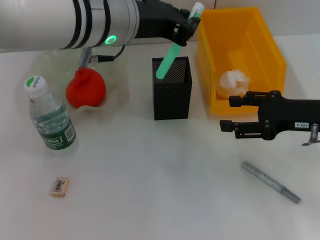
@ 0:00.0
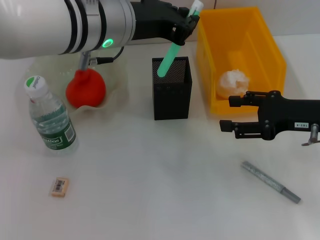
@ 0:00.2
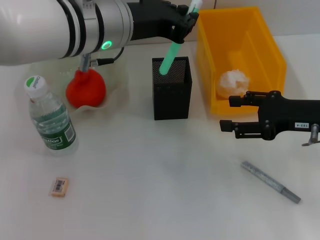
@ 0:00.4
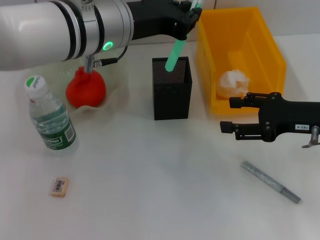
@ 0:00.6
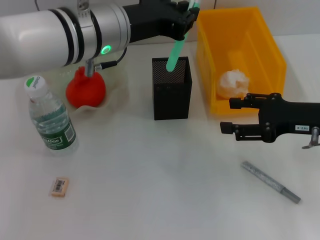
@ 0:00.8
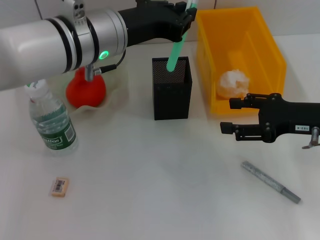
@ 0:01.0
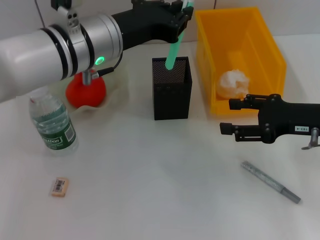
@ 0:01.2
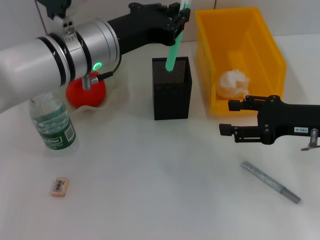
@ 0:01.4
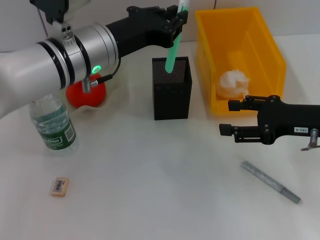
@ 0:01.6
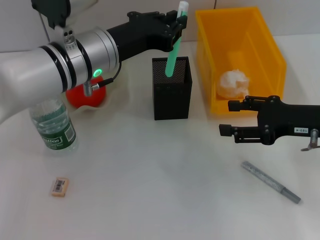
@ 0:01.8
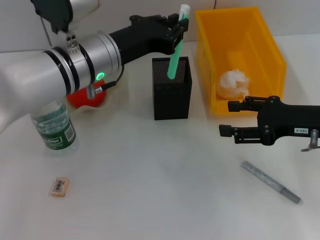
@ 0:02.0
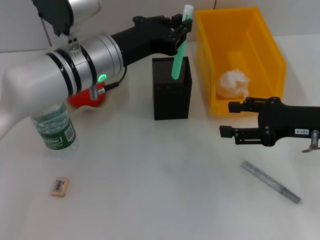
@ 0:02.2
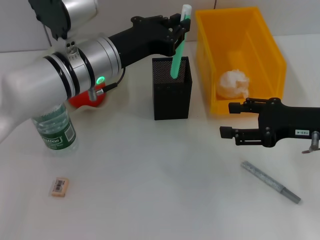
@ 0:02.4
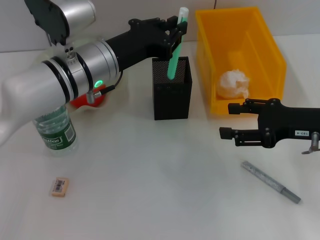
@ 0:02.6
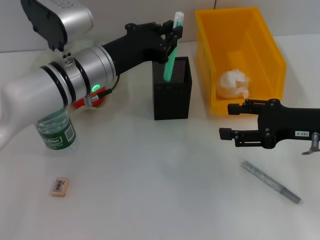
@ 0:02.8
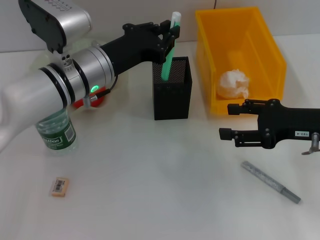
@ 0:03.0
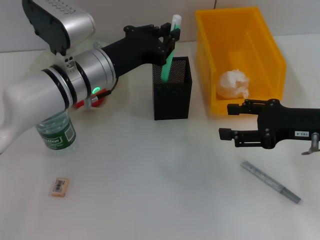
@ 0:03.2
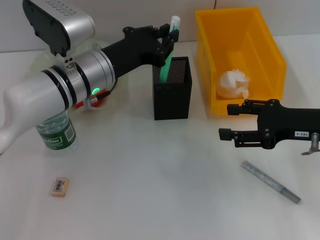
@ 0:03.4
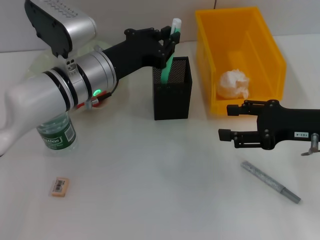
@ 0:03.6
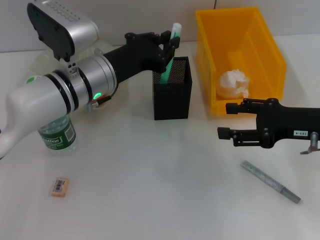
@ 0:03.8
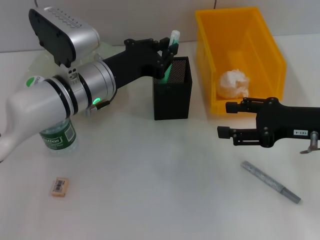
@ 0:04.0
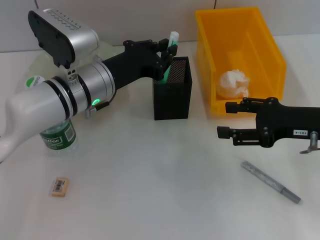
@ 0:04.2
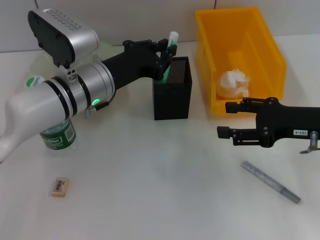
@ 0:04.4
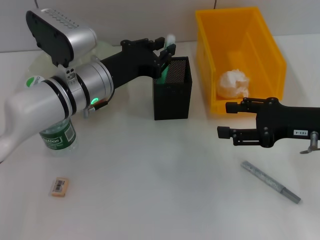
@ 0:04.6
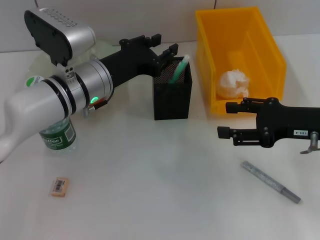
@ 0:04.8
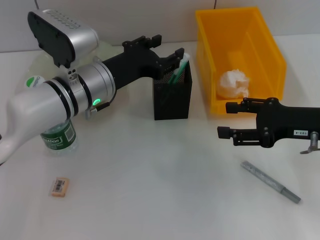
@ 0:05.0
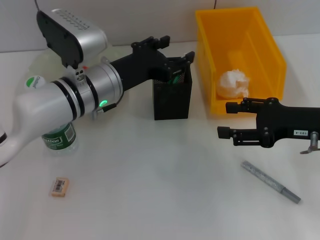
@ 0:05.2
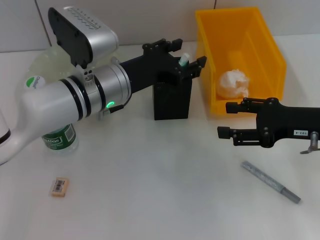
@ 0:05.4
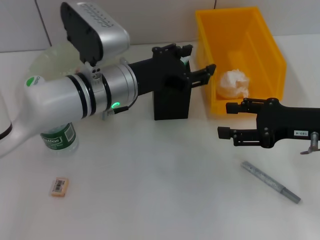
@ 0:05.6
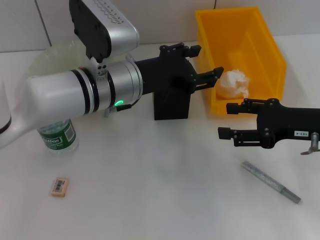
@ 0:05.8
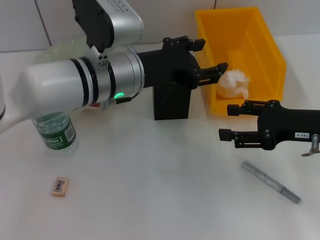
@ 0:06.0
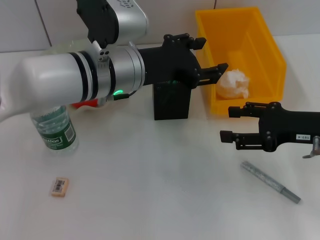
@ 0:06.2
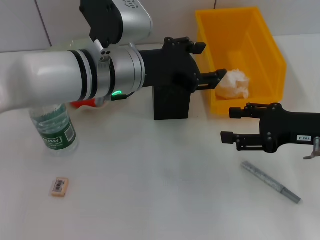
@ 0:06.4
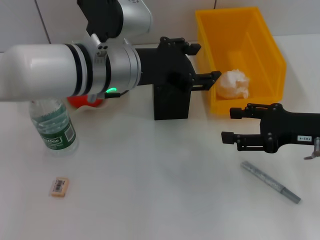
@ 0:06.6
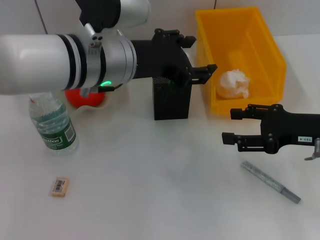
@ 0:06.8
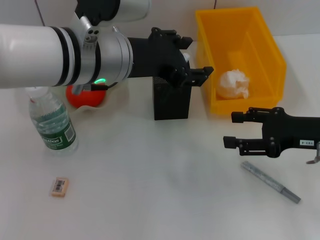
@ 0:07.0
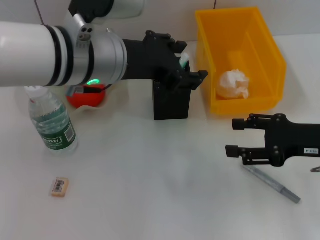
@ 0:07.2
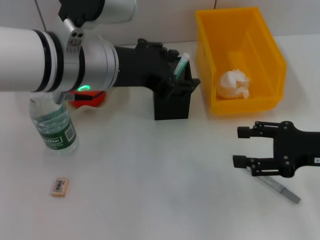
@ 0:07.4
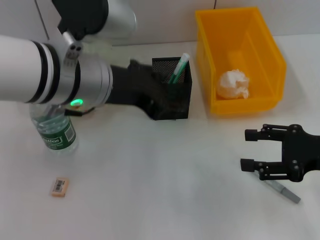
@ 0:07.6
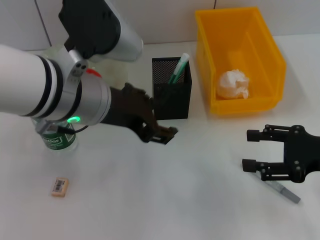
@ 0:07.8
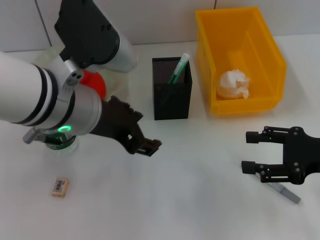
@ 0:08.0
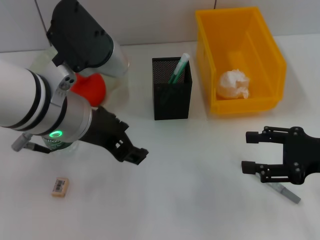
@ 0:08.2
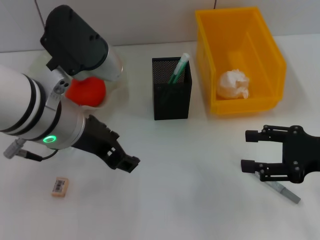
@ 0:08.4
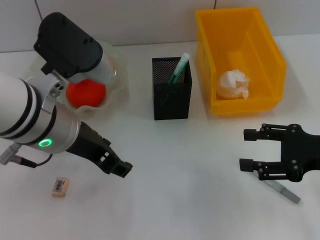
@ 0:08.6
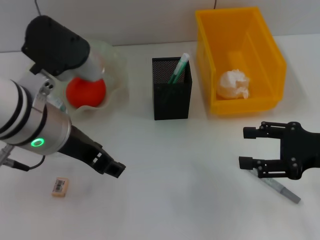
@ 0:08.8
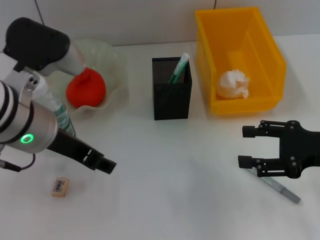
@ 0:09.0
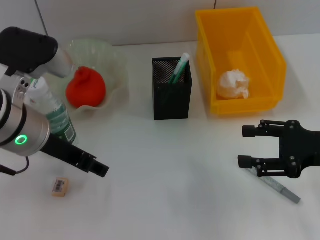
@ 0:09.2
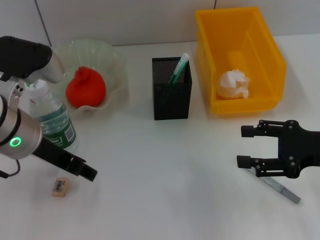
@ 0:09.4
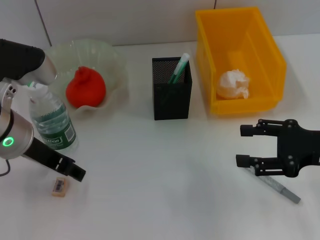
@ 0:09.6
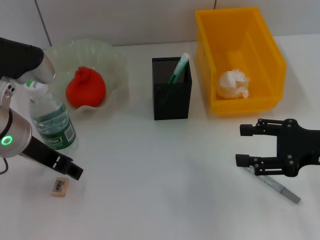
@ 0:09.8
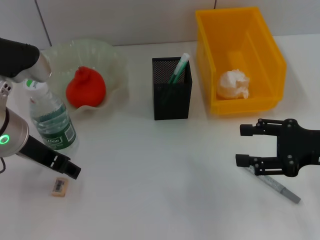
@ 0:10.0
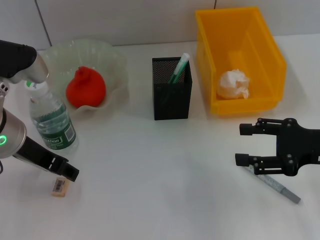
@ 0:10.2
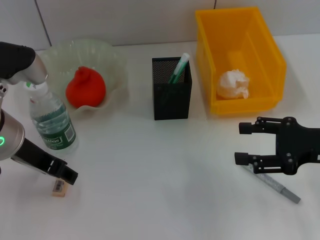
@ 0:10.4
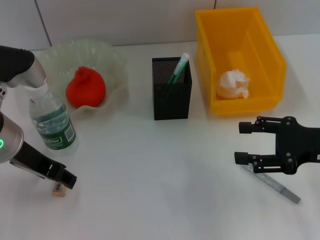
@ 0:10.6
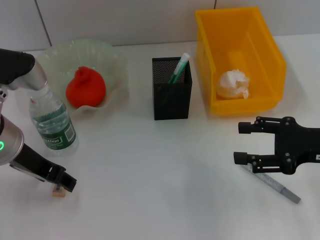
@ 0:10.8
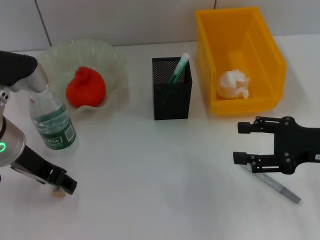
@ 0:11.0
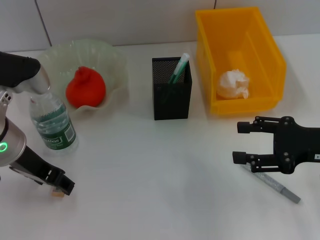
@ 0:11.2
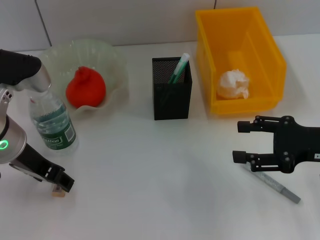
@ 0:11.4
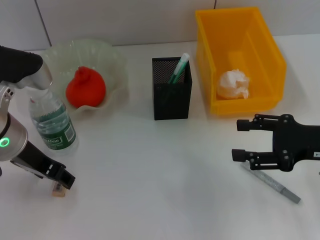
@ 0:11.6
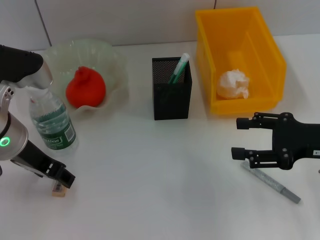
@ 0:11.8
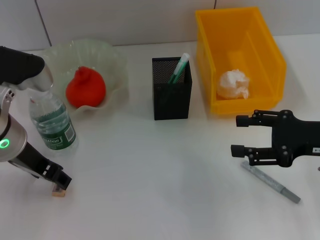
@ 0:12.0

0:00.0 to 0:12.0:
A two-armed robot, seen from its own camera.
Step, 0:00.0 to 0:04.8: Place the blue utility knife into the pen holder with the left hand.
0:00.0 to 0:01.6: The left gripper is displaced downward by approximately 5 cm.
0:01.6 to 0:03.0: There are only small adjustments of the grippers.
0:03.0 to 0:04.4: There are only small adjustments of the grippers.
0:04.4 to 0:06.0: The left gripper changes place by some 5 cm, and opens up.
0:06.0 to 0:07.6: The left gripper shifts some 5 cm upward.
0:07.6 to 0:09.0: The left gripper ends up some 5 cm from where it was.
0:09.0 to 0:10.4: The left gripper changes place by roughly 5 cm.
0:10.4 to 0:12.0: There are only small adjustments of the grippers.

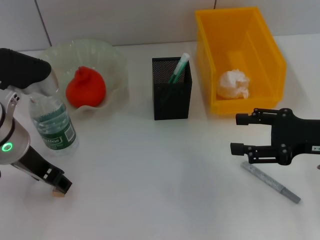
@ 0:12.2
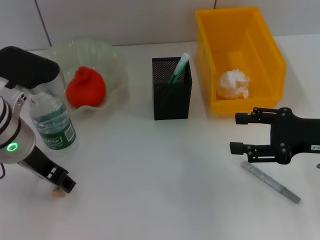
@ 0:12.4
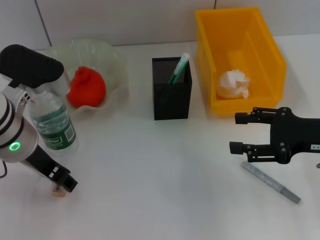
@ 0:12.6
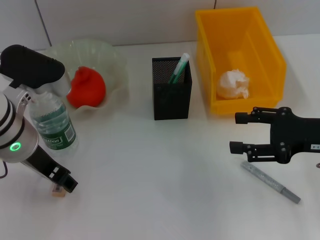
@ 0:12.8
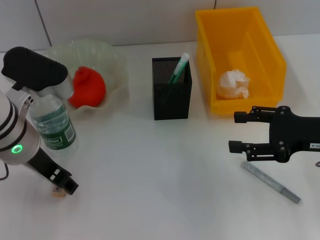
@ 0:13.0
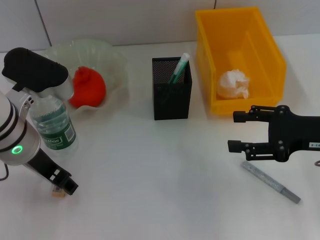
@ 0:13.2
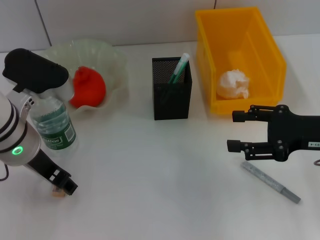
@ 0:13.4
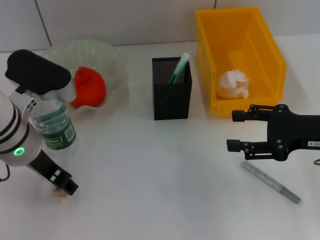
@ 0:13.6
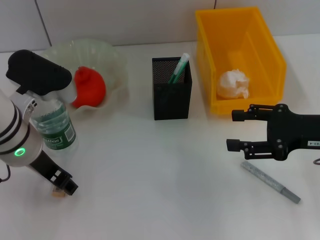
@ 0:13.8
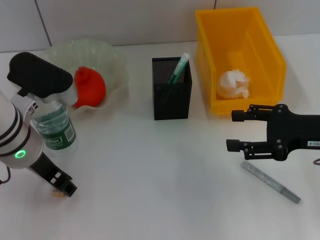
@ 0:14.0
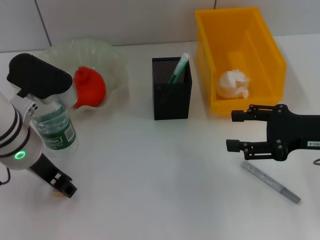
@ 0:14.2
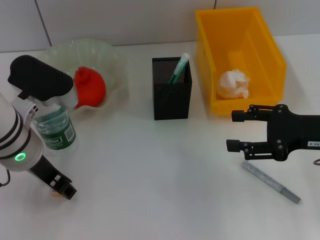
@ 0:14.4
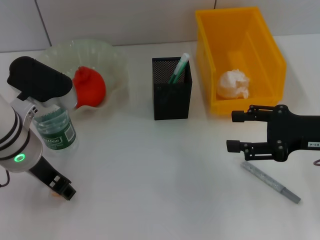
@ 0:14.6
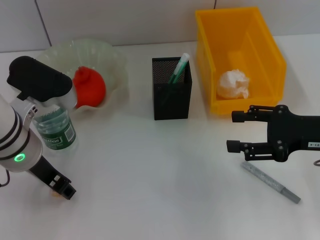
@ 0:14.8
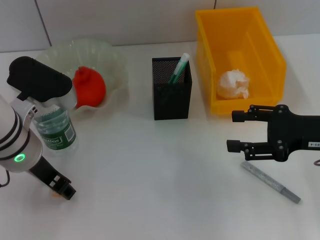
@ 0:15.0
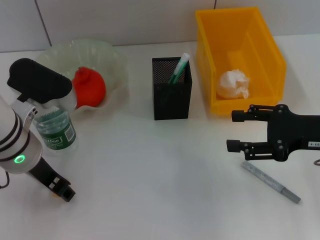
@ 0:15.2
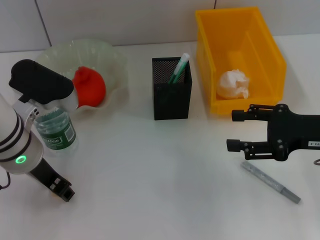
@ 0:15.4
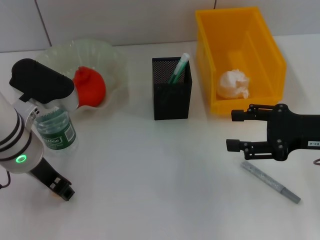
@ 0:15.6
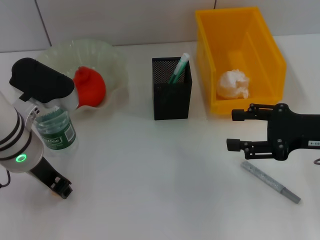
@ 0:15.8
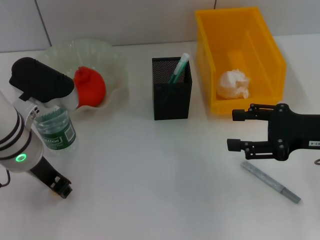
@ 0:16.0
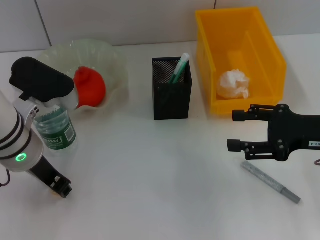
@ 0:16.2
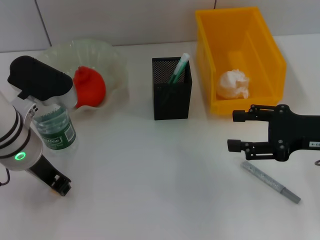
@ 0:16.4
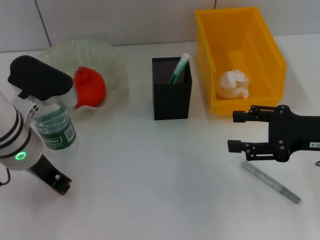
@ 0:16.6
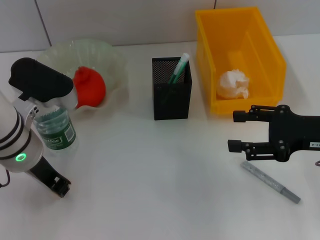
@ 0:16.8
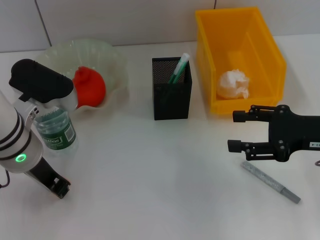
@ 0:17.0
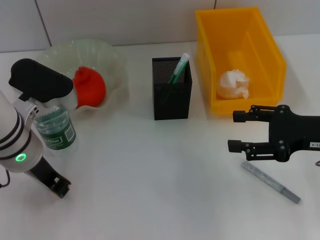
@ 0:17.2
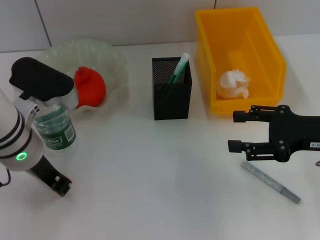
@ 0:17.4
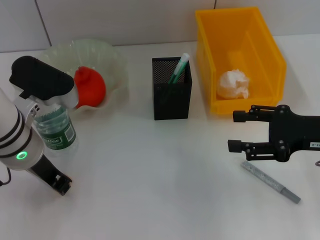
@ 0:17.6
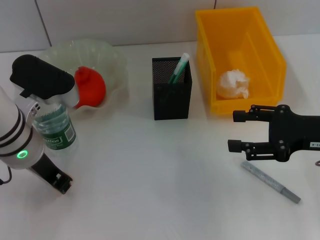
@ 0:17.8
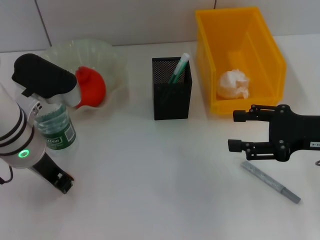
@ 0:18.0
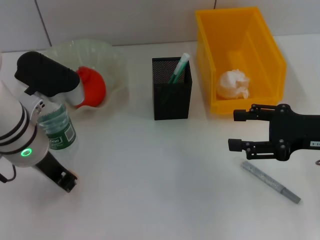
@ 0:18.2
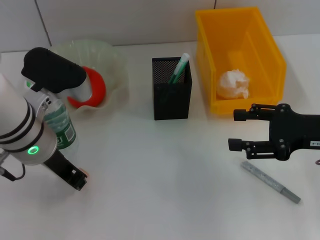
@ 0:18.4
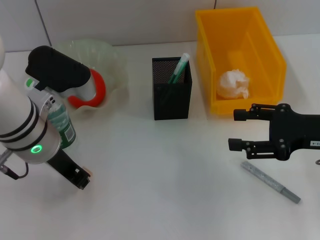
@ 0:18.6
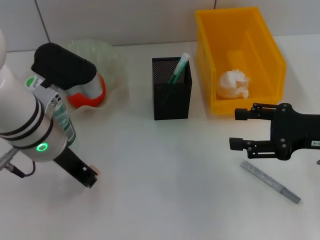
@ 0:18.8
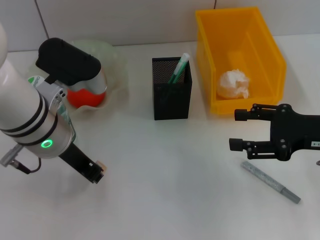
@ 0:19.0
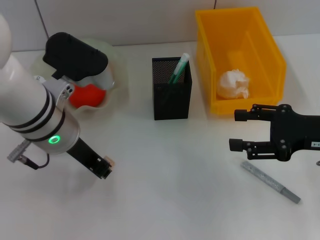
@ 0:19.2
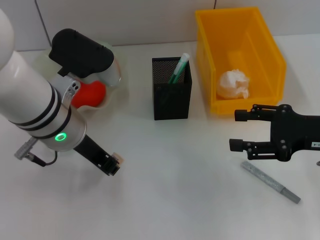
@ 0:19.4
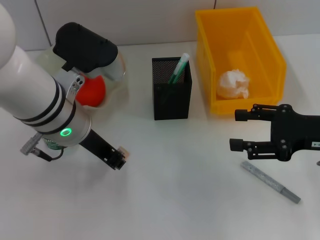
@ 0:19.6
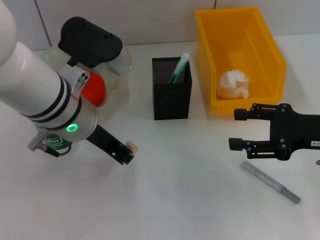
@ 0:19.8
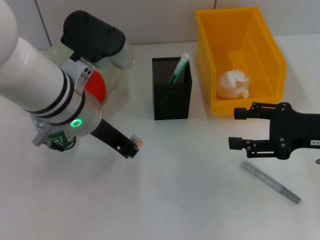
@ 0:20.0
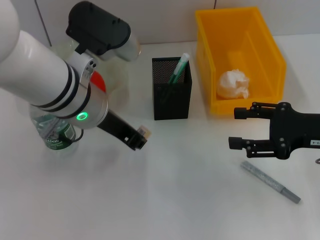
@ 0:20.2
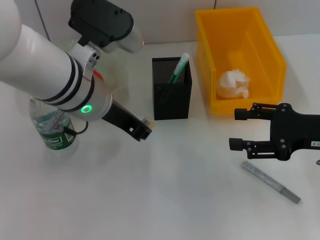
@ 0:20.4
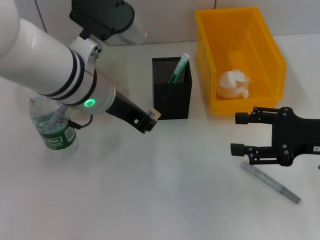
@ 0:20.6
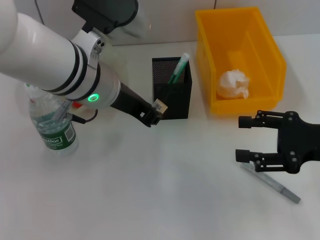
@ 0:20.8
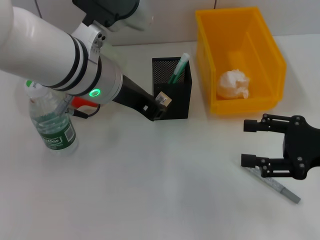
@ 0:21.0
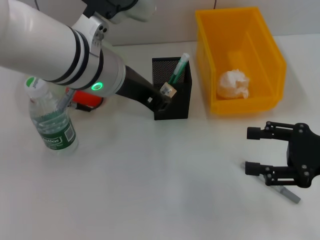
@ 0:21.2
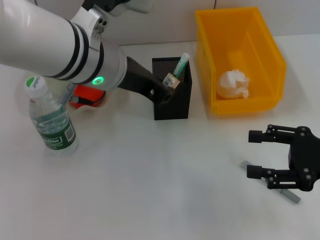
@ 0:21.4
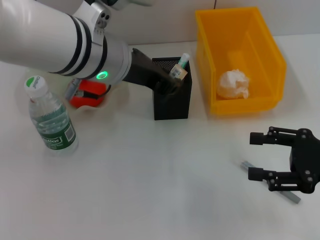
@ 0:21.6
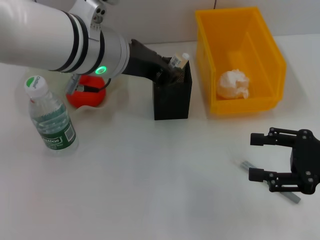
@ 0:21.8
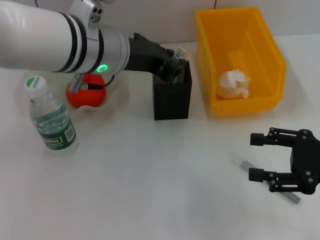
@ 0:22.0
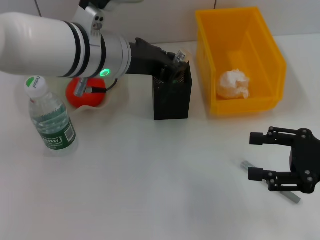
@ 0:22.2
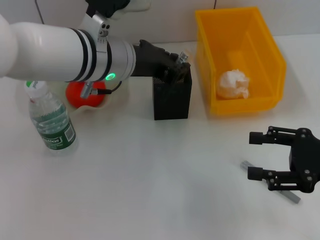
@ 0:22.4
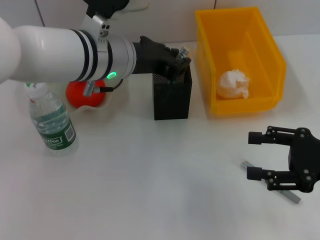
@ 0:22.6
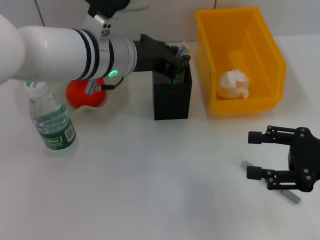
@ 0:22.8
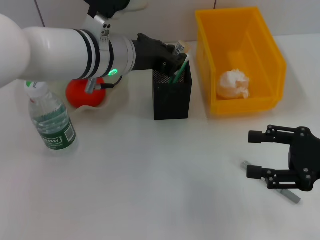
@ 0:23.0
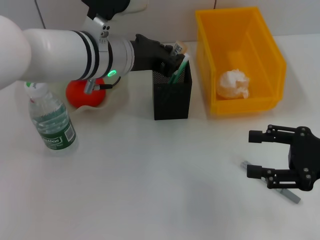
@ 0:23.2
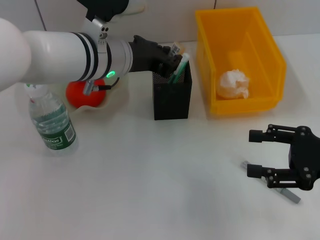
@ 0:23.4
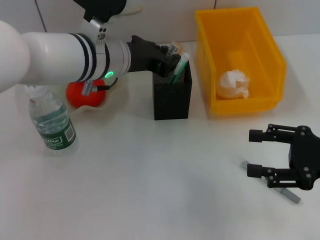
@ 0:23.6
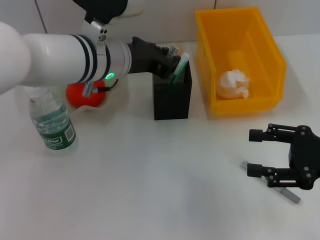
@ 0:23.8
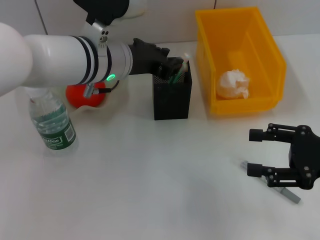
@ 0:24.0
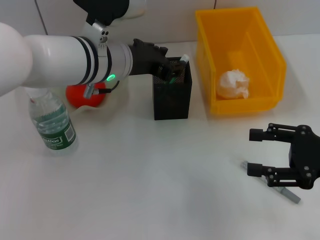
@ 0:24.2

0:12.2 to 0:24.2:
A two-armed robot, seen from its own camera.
Step, 0:12.2 to 0:17.0: Grab the eraser with the left hand.
Step, 0:17.2 to 0:24.0: Place the eraser into the pen holder with the left hand.
0:12.2 to 0:13.8: The grippers stay close to where they were, moving slightly.
0:13.8 to 0:18.2: The two grippers keep their place.
0:18.2 to 0:19.8: The left gripper heads to the right, covering some 5 cm.
0:19.8 to 0:21.2: The left gripper moves approximately 5 cm.
0:21.2 to 0:22.6: There are only small adjustments of the grippers.
0:22.6 to 0:24.2: The grippers make only small movements.
